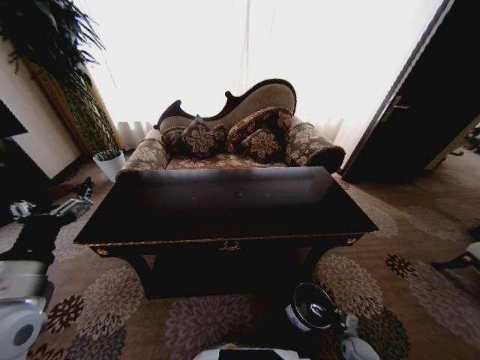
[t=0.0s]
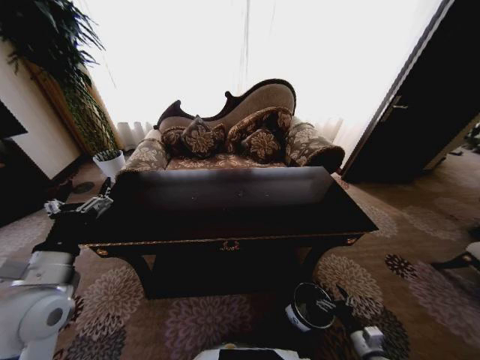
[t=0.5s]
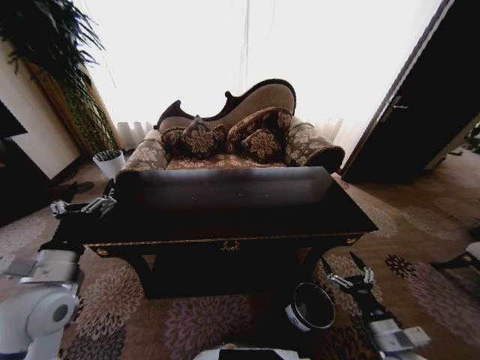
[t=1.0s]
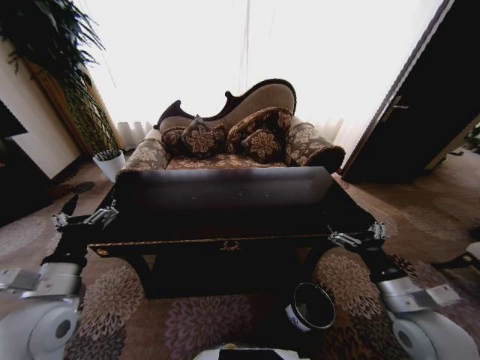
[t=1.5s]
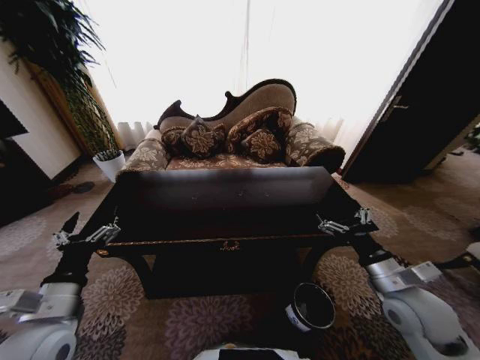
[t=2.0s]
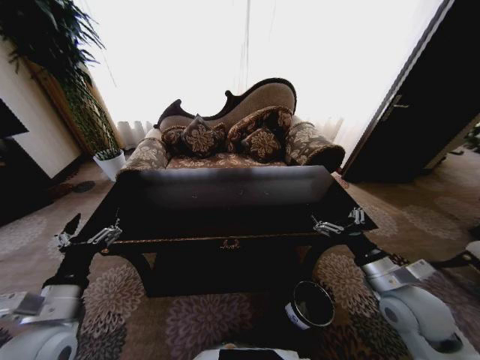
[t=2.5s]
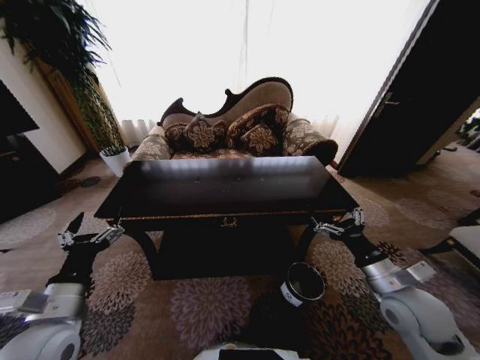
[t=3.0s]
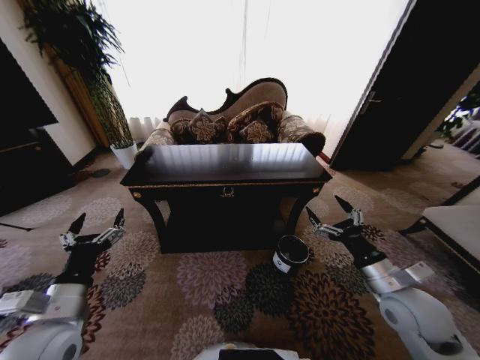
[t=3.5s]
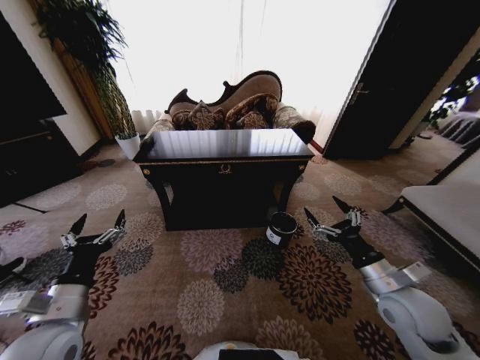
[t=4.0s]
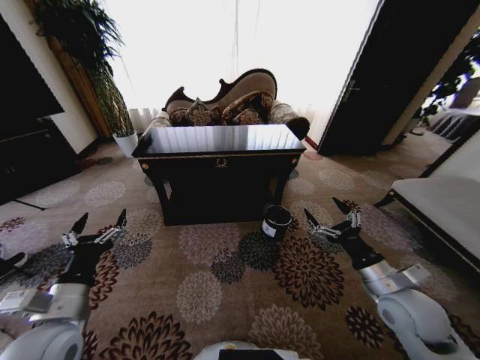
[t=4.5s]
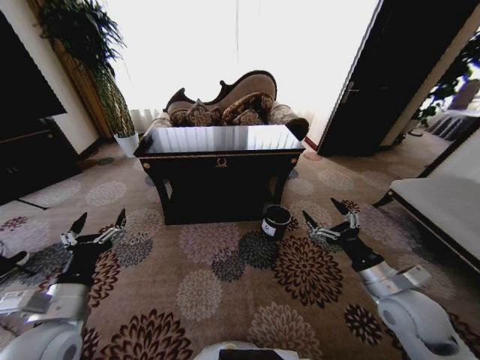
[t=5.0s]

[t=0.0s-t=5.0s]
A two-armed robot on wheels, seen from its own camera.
Task of the whole recording: Move to the front of the table and place the trash on the table into the trash bin.
t=0.0s to t=2.5s: The left gripper heads downward, covering some 5 cm; the right gripper moves upward, some 40 cm.
